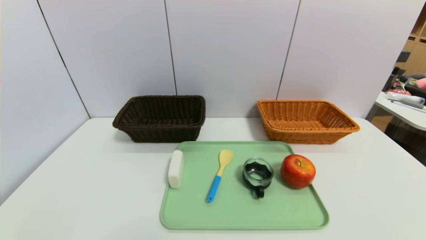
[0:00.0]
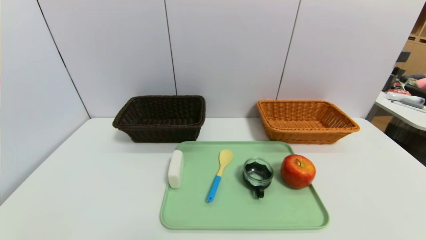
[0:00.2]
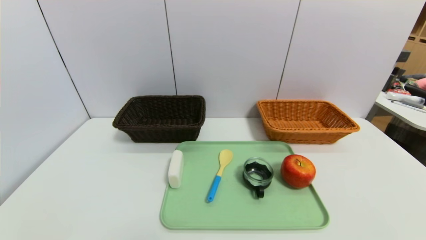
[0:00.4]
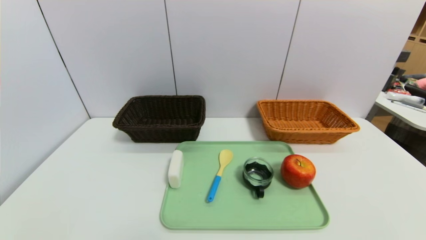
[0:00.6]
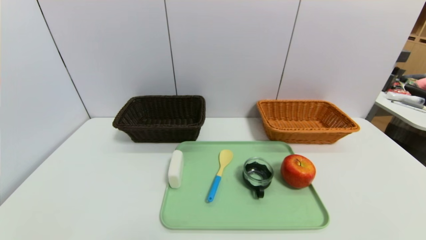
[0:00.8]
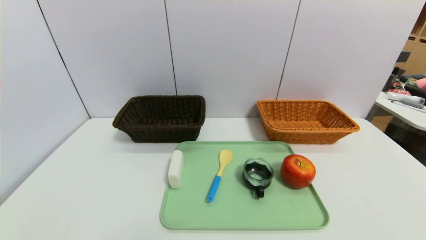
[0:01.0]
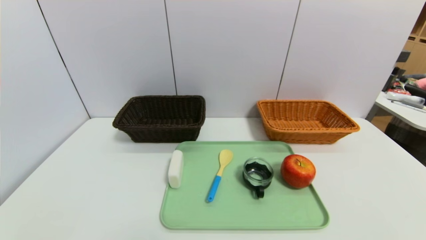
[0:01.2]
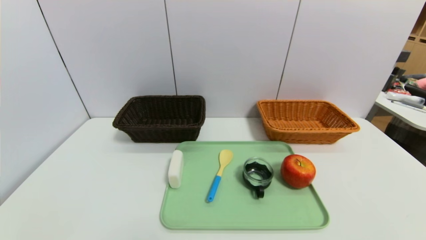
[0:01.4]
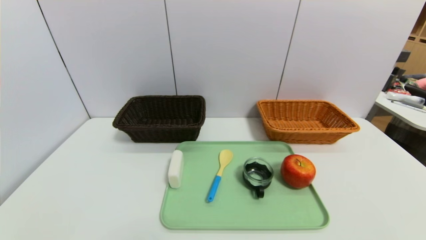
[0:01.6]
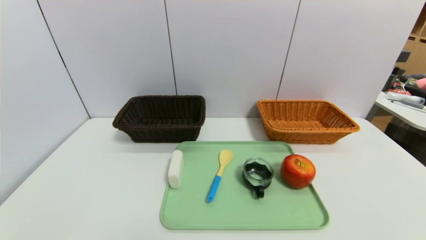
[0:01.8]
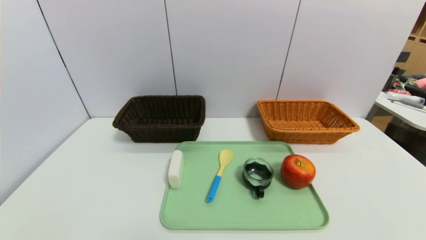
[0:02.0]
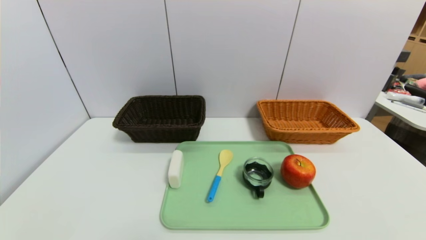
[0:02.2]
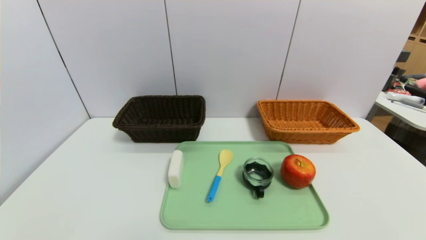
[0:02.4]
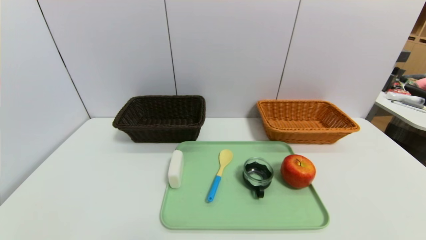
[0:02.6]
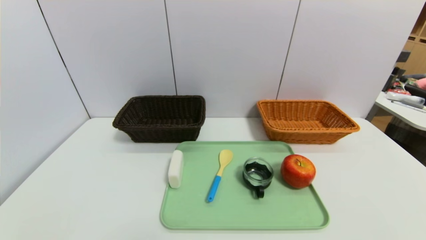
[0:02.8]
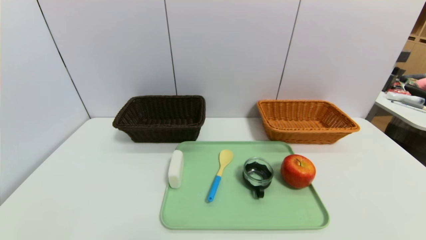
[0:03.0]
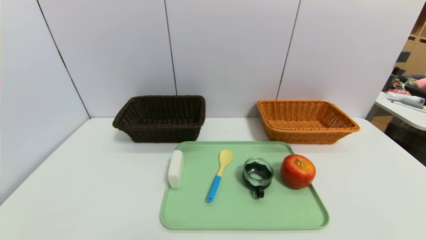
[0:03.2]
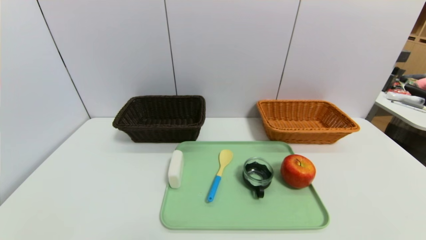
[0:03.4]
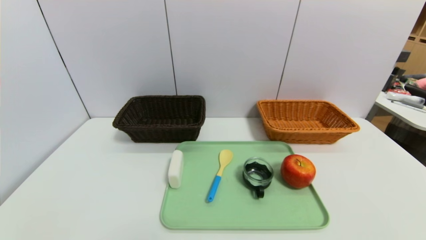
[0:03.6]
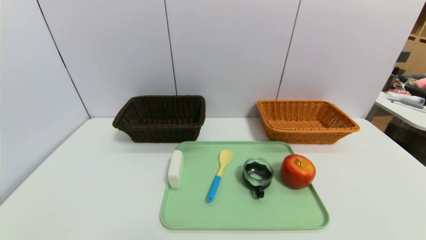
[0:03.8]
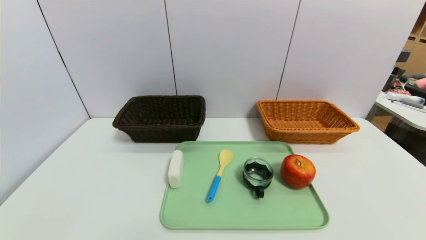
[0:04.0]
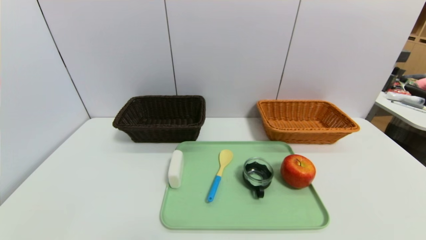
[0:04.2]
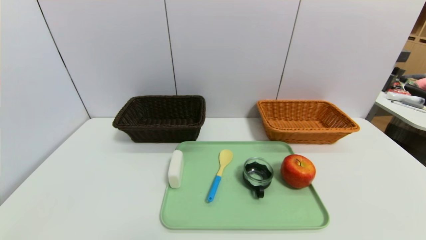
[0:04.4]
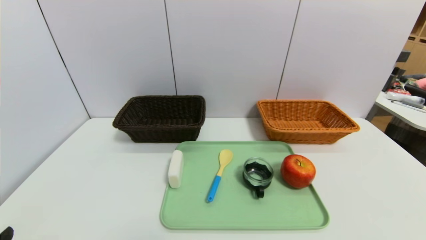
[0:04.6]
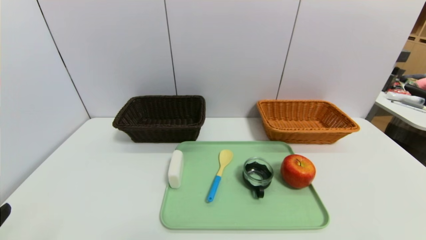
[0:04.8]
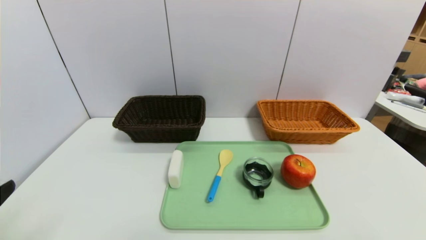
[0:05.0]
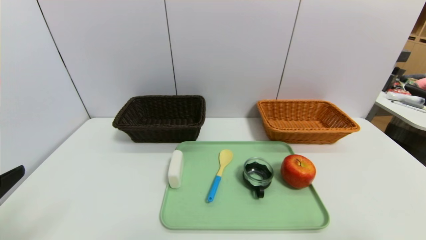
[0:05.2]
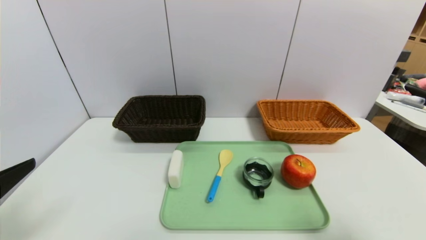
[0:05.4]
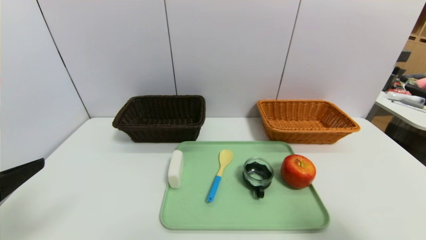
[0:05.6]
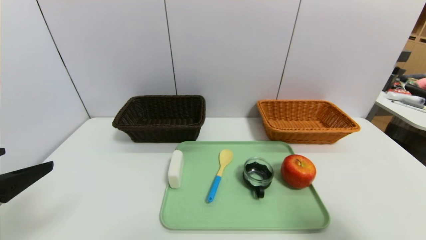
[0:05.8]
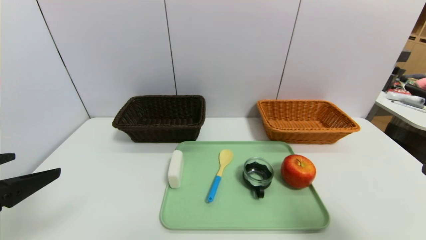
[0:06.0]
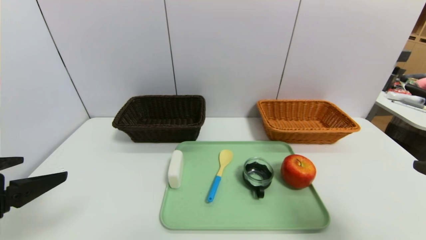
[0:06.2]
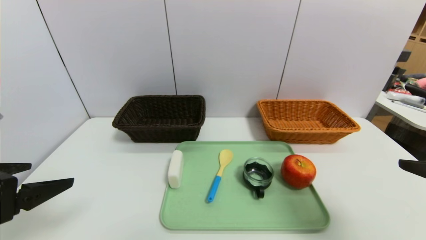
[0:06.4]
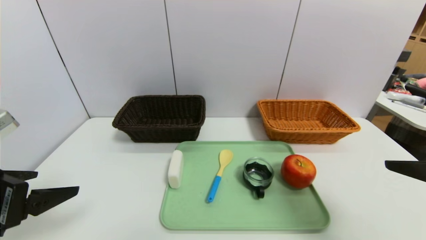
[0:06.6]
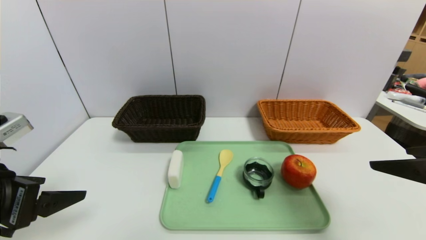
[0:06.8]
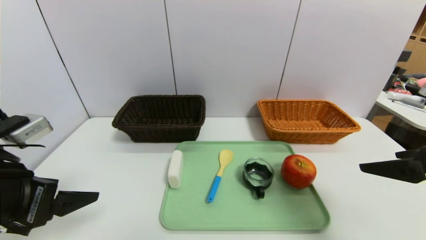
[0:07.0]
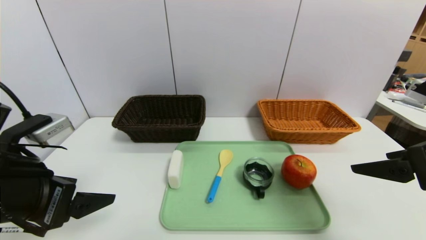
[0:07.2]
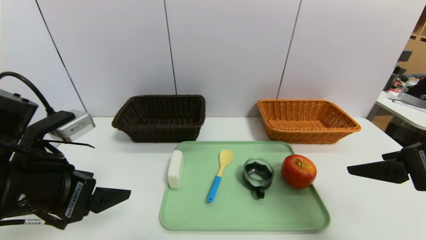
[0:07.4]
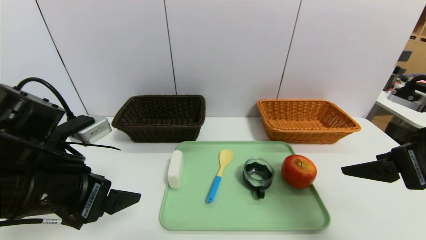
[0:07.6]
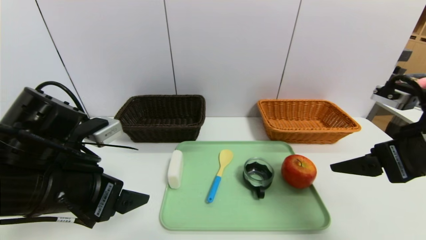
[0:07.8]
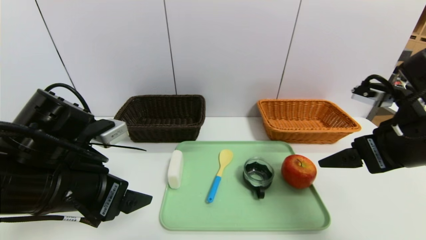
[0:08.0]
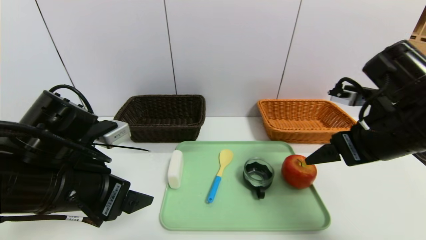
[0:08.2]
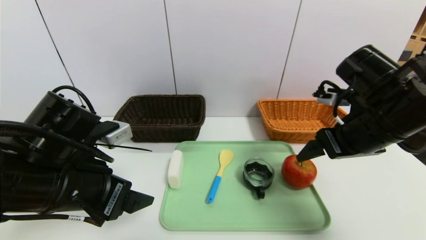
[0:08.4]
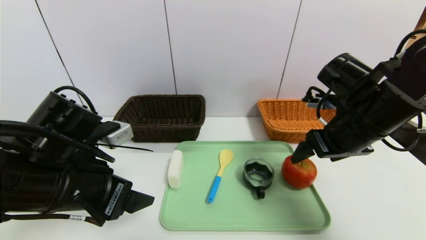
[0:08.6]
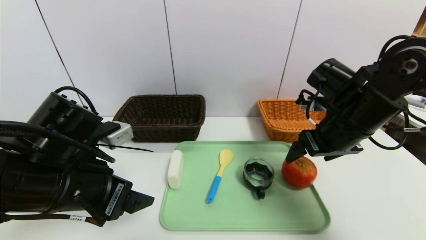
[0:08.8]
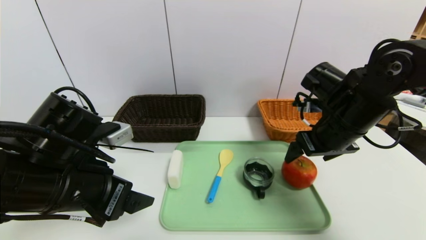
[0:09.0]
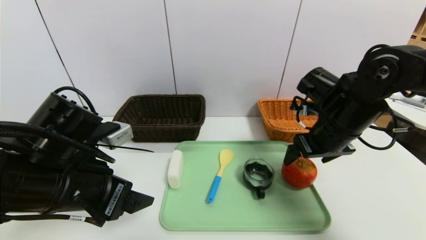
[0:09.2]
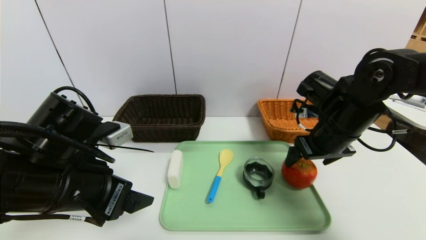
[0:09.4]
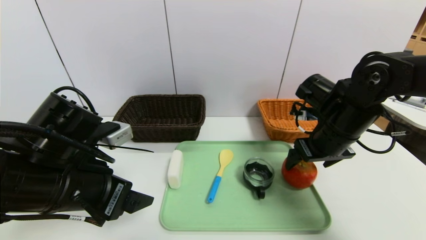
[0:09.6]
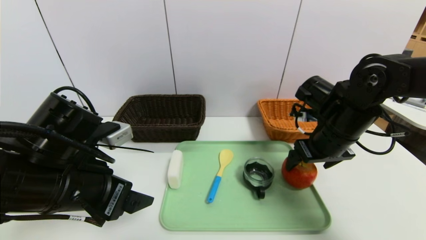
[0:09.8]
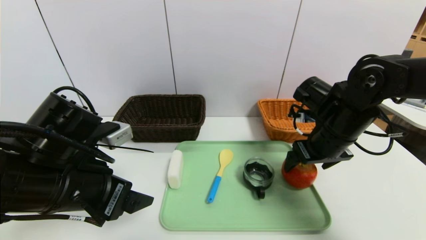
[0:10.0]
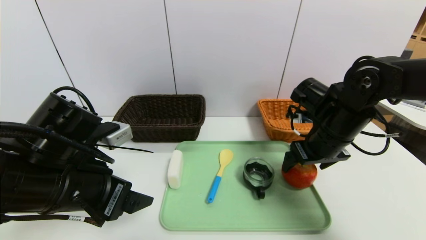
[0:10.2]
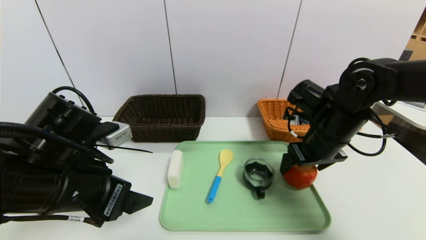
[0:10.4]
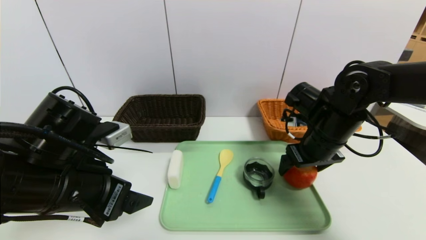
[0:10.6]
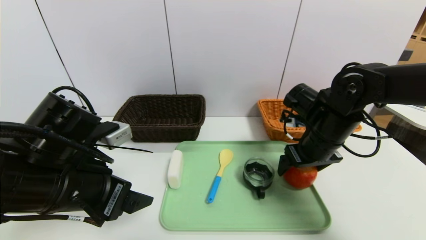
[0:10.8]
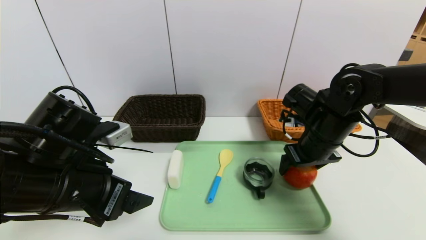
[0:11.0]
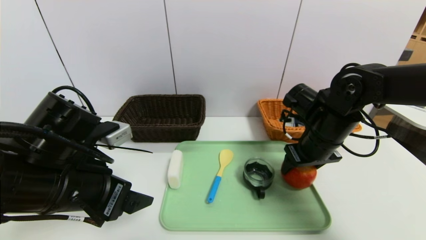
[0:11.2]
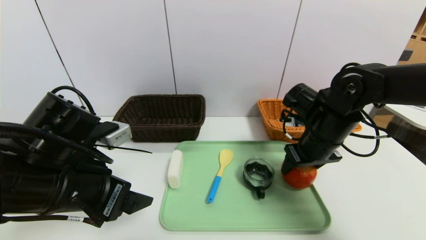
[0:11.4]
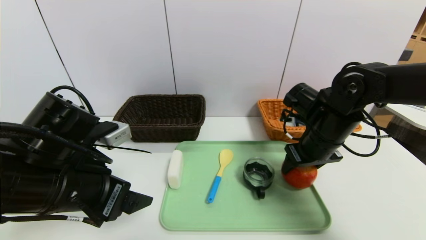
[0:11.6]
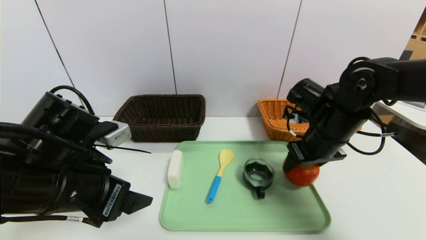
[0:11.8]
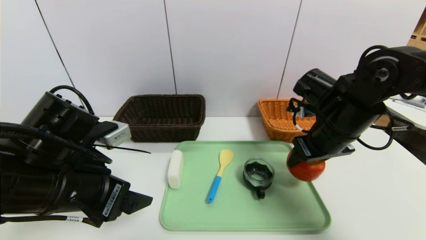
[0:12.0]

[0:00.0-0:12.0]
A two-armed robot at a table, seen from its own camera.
Task of the whole recording: place the food in the right basket with the right gripper, and place the non food items in the left basket with the left gripper.
0:00.0 to 0:03.0: Neither gripper changes place.
0:04.4 to 0:06.0: The grippers both shift upward and forward by some 15 cm.
0:06.0 to 0:07.6: The right gripper travels forward by about 10 cm. Meanwhile the left gripper goes roughly 10 cm to the right and forward.
0:07.6 to 0:09.0: The right gripper heads forward and to the left, covering roughly 15 cm.
0:09.0 to 0:10.4: The grippers move only a little.
0:10.4 to 0:12.0: The right gripper closes up.

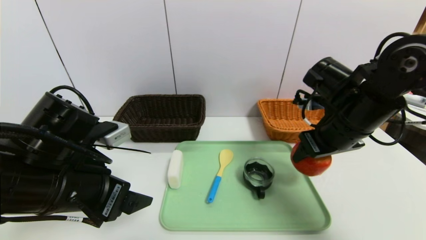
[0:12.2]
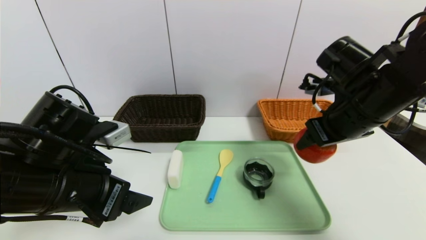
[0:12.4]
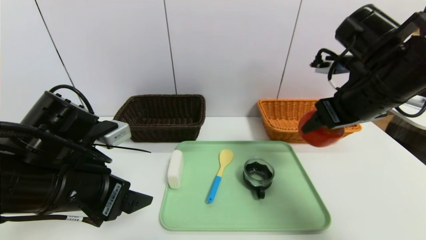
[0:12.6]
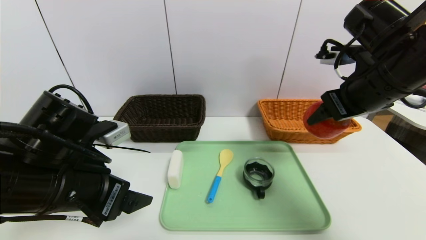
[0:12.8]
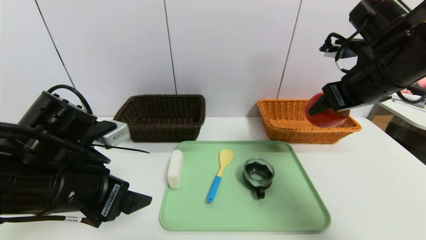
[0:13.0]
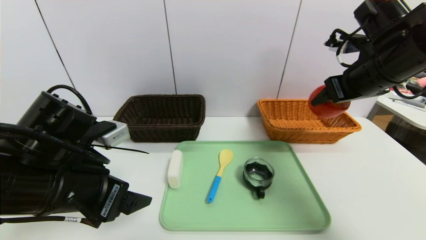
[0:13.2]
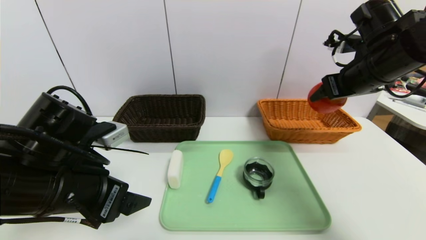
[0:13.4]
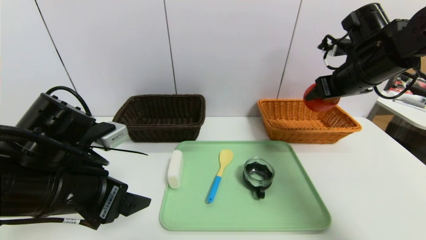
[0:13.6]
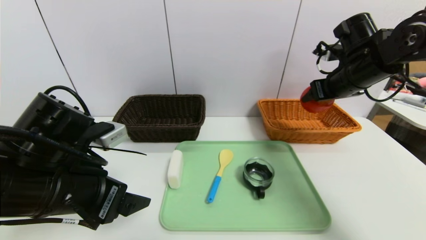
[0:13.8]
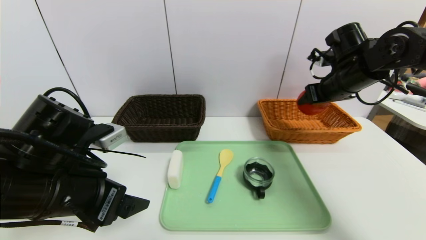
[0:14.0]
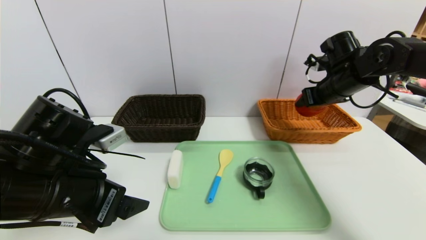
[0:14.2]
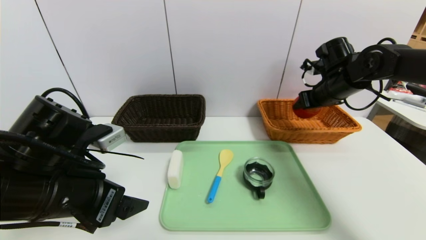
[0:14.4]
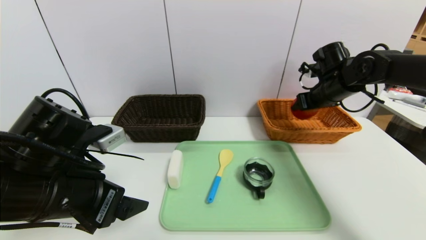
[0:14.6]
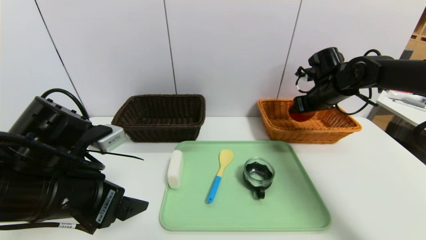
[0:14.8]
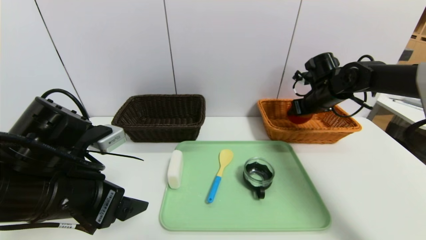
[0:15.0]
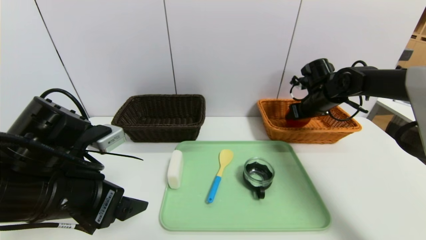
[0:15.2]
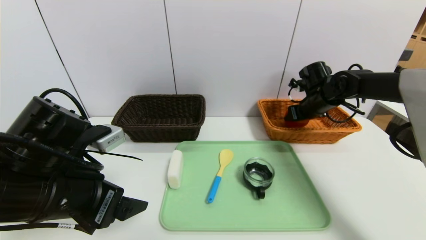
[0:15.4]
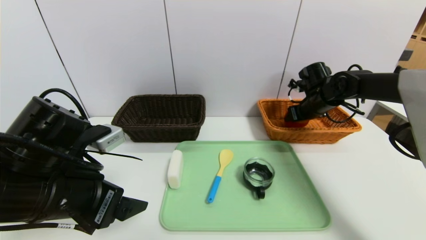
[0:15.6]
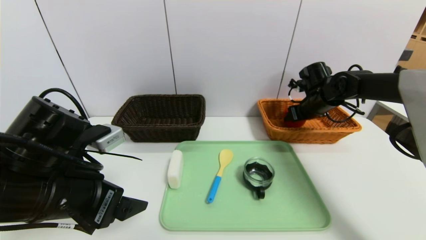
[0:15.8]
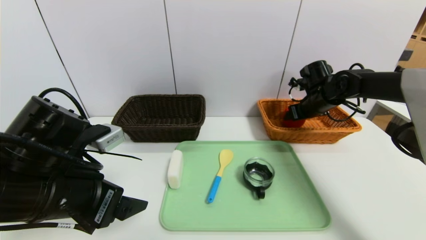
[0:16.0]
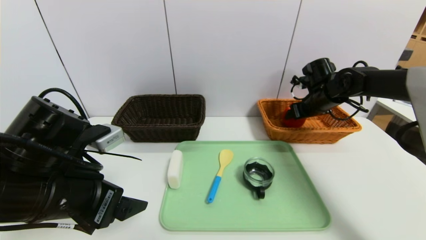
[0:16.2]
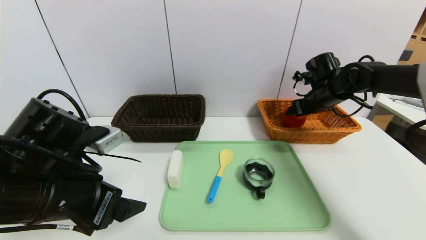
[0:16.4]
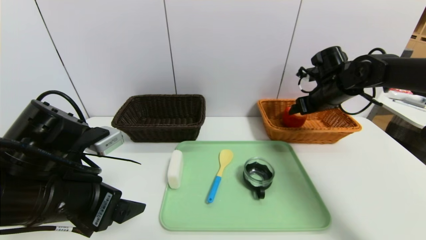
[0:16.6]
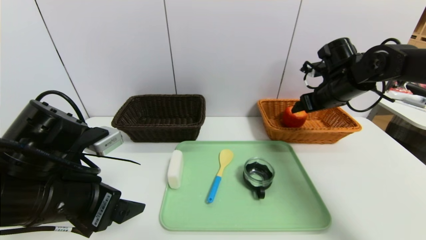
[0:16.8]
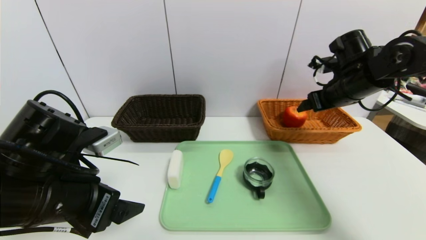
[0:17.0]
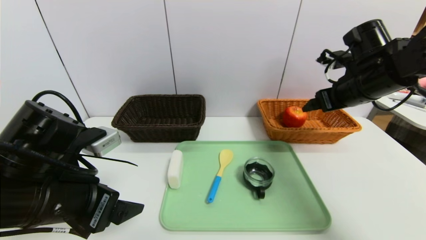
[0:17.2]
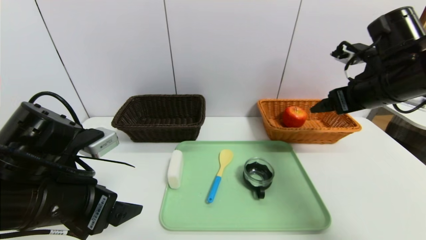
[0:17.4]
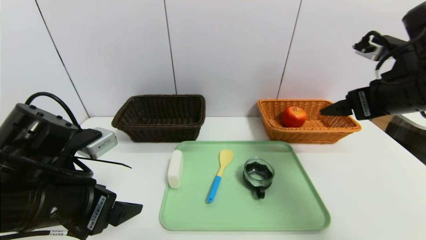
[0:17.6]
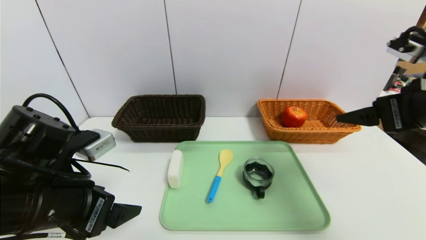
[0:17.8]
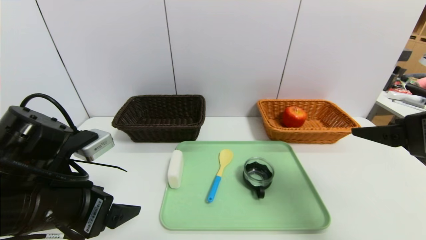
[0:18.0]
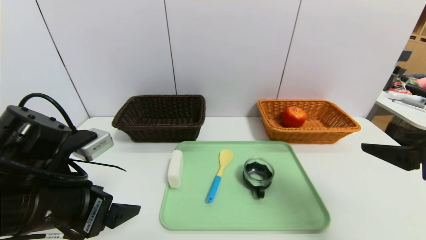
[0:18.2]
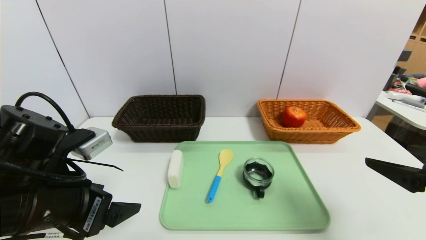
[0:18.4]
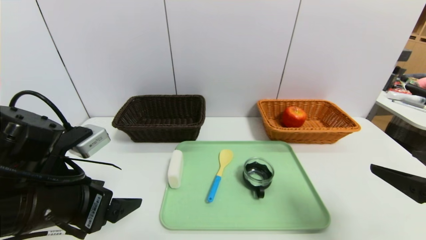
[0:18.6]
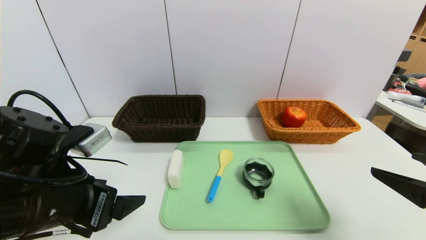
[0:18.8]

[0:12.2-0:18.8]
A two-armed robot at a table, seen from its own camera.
Task of the whole recording: place the food in the right basket with the right gripper, and place the non food items in the left basket with the left gripper.
Step, 0:12.2 to 0:17.0: Grasp the apple and put it in the right basket.
0:12.2 to 0:13.8: The right gripper heads forward and to the right, covering about 10 cm.
0:13.8 to 0:15.4: The right gripper heads downward and forward, covering some 15 cm.
0:15.4 to 0:17.2: The right gripper goes some 15 cm backward and upward, and opens its fingers.
0:17.2 to 0:18.8: The right gripper heads backward, covering approximately 25 cm.
